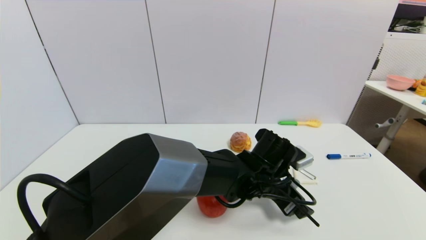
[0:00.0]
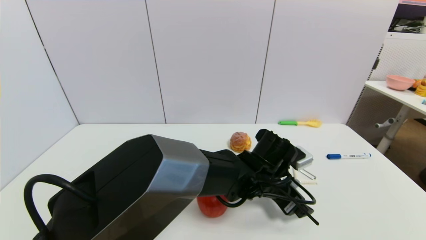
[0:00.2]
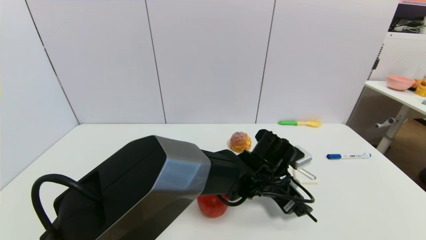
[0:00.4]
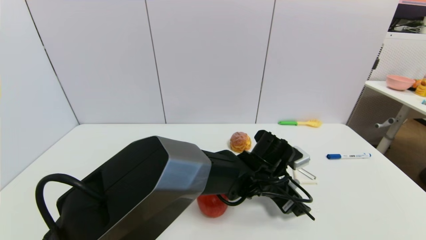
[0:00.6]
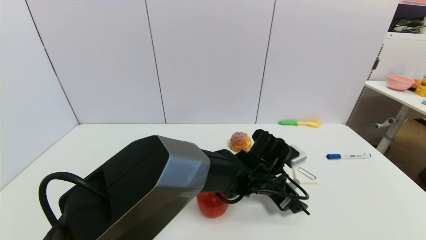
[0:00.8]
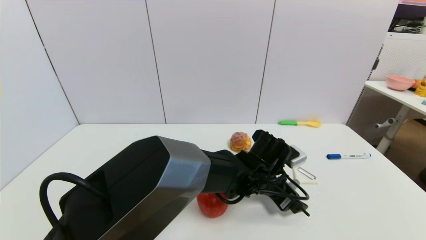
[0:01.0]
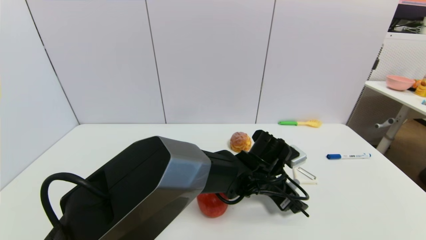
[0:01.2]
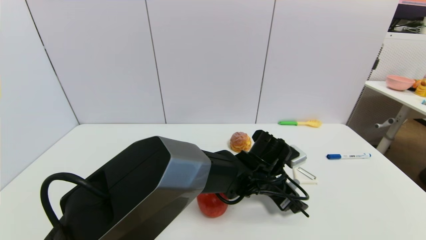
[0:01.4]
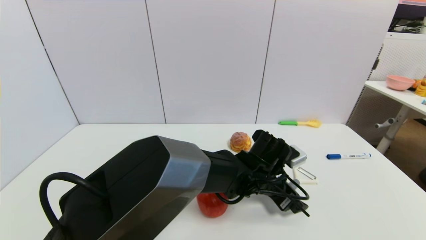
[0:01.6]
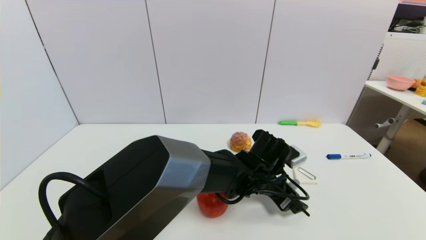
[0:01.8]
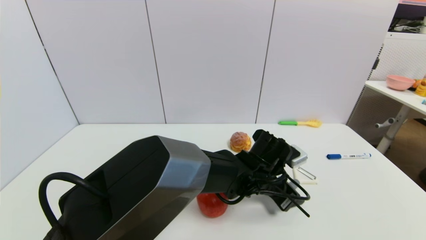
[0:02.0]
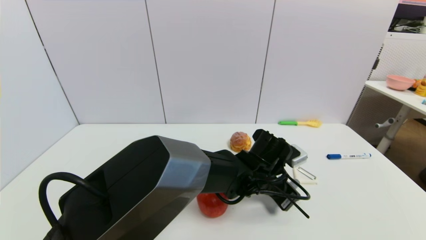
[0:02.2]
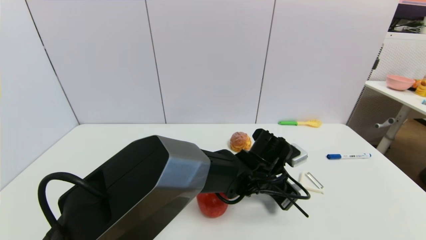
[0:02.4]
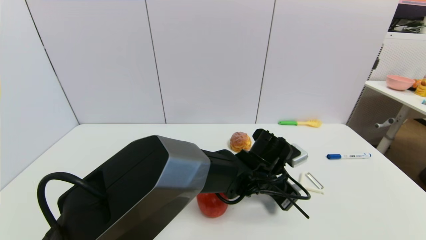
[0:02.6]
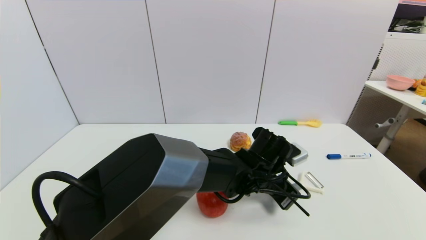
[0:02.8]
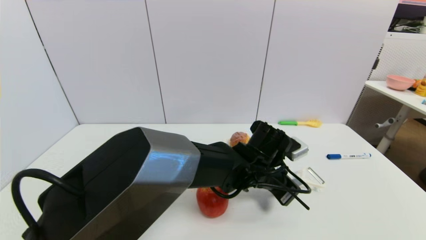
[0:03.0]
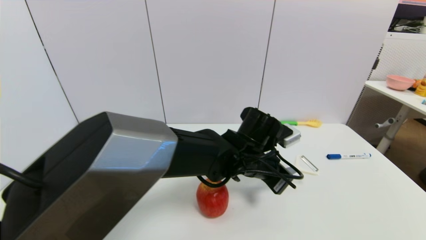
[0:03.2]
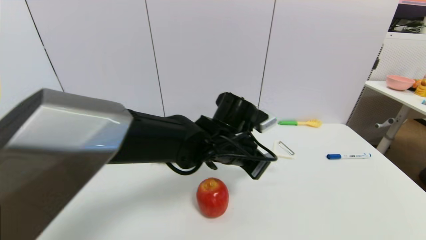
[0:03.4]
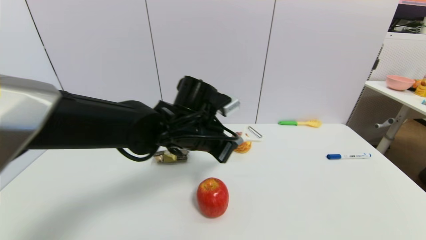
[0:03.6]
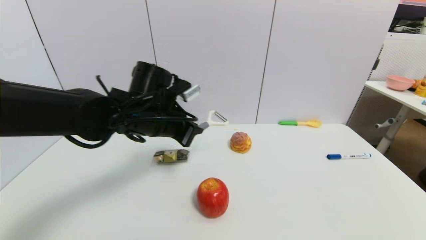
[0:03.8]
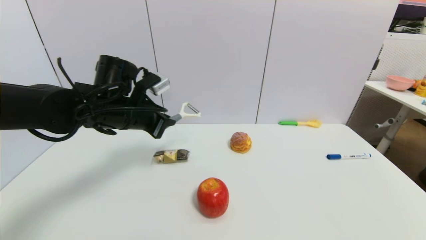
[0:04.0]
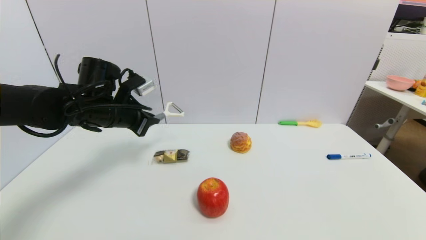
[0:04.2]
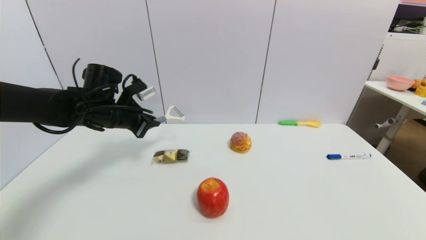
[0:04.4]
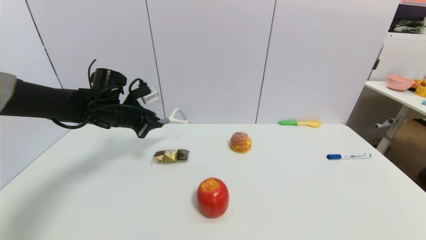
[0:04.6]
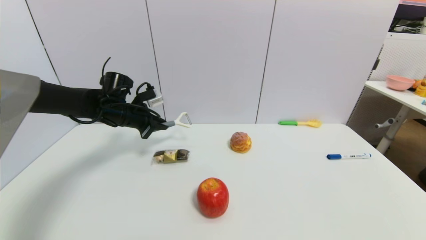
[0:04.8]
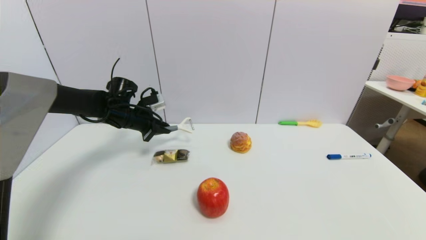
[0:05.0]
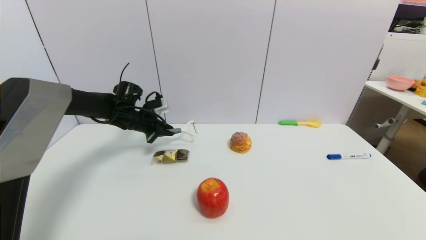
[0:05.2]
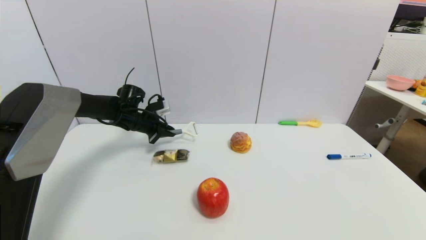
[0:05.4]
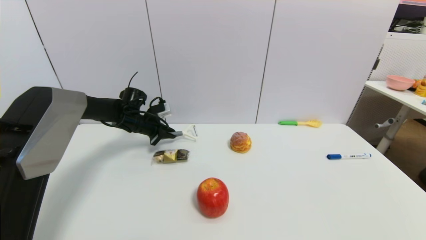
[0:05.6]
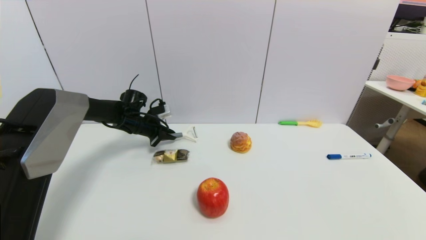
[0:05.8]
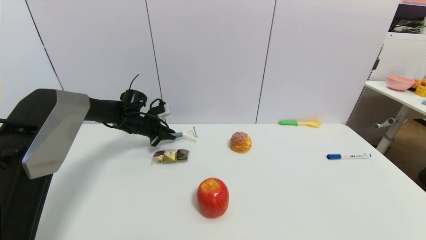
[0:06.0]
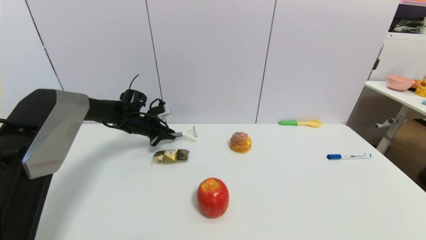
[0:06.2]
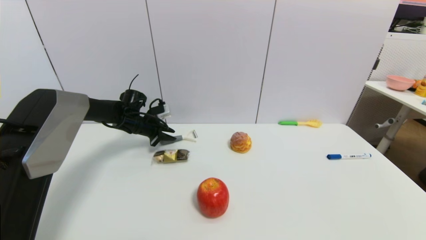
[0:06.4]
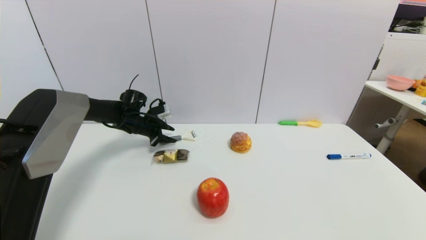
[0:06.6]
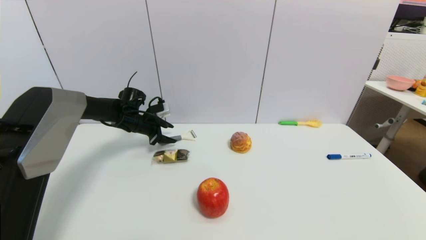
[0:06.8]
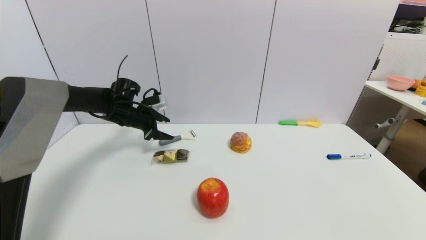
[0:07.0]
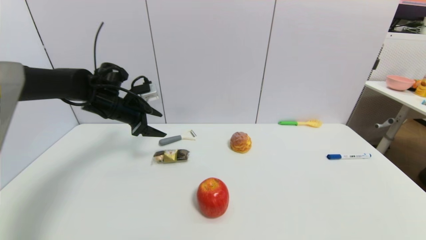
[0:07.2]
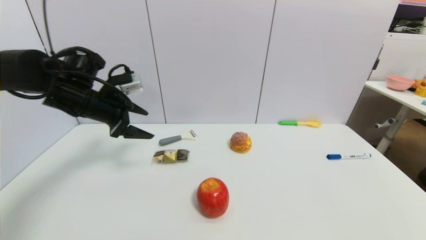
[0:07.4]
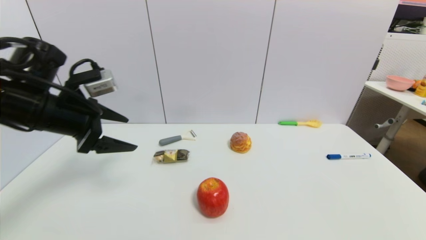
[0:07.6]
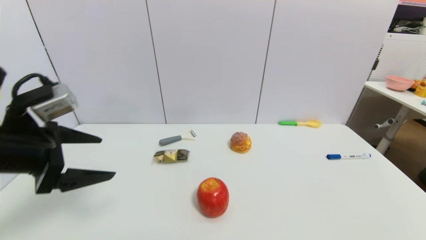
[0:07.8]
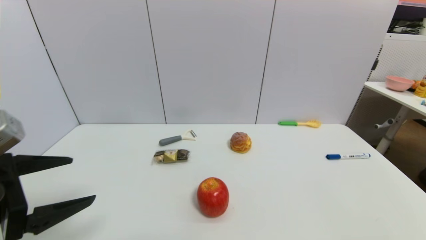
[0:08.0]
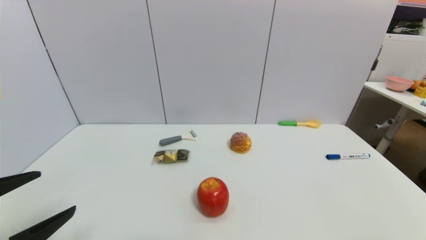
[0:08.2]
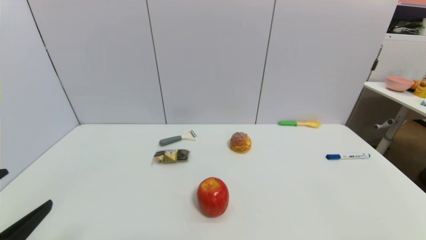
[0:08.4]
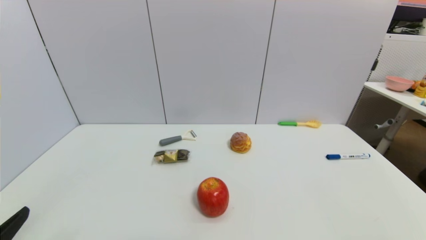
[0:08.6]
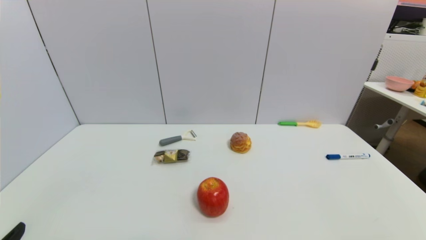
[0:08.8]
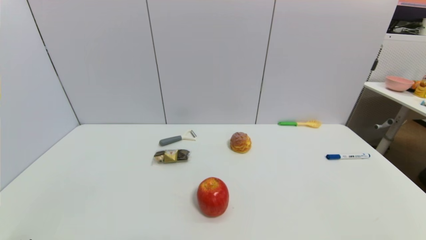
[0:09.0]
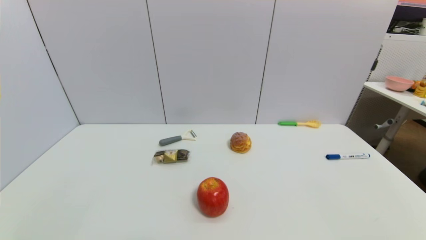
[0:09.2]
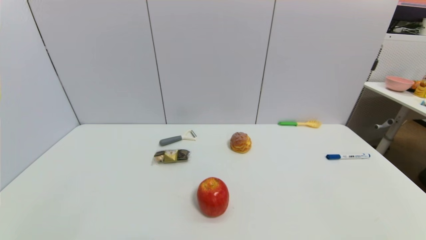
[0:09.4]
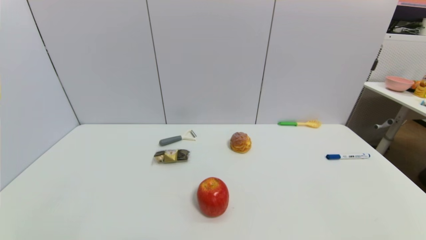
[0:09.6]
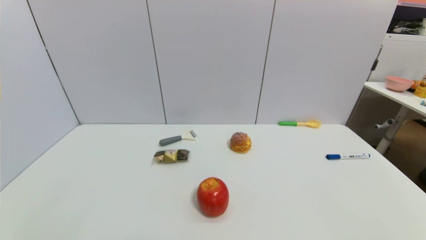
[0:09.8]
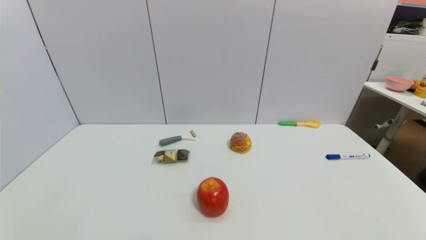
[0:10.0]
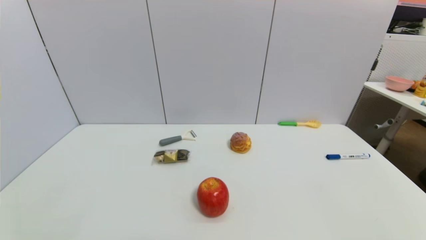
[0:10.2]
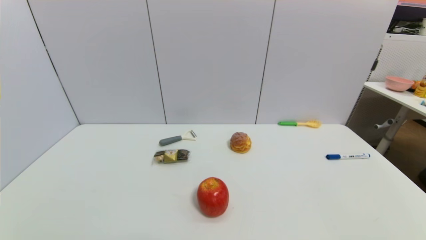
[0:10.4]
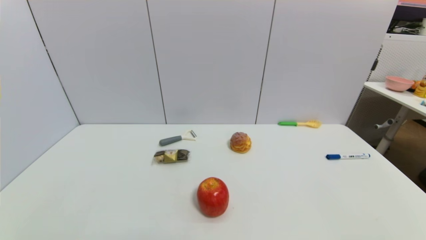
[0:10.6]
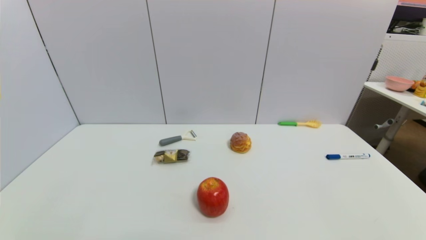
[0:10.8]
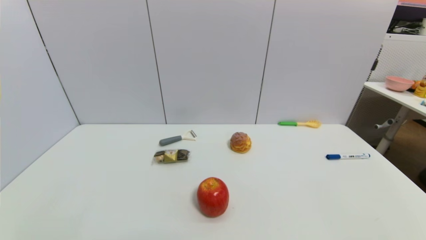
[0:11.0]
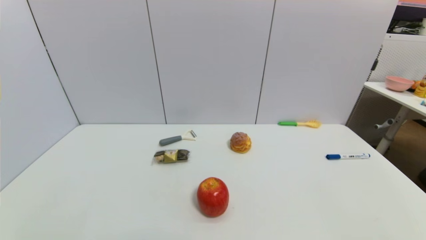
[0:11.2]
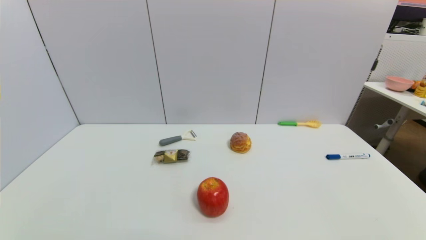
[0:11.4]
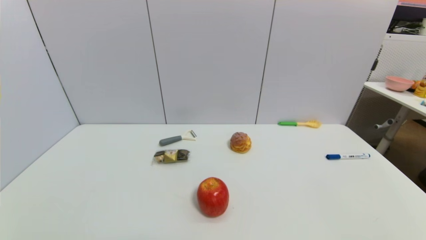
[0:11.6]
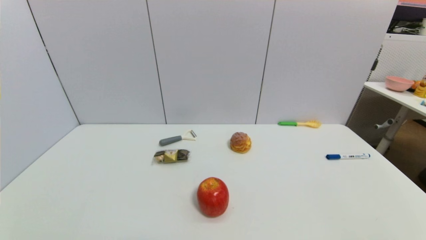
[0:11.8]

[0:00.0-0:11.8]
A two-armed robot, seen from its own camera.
Step, 0:00.0 to 0:03.0: Grasp the peeler with left gripper.
Step, 0:03.2 to 0:06.8: Place the peeler on the table with left gripper.
0:00.0 to 0:01.4: The grippers move only a little.
0:01.4 to 0:03.0: The left gripper closes its fingers.
0:03.0 to 0:04.4: The left gripper heads to the left, covering roughly 30 cm.
0:04.4 to 0:06.0: The left gripper travels forward and downward by approximately 15 cm.
0:06.0 to 0:07.4: The left gripper heads upward and backward, covering approximately 20 cm, and opens.
0:07.4 to 0:08.8: The left gripper goes approximately 35 cm backward.
0:10.4 to 0:11.8: Both grippers stay about where they are.
